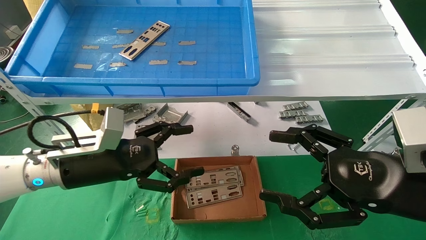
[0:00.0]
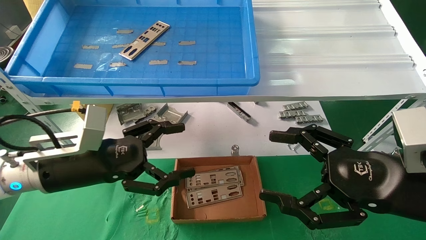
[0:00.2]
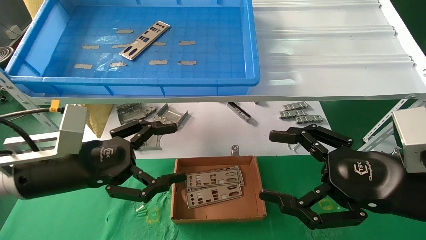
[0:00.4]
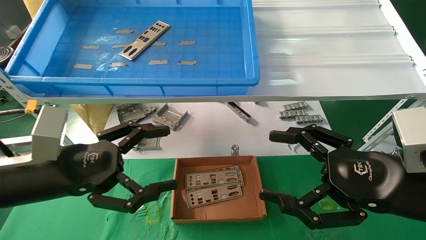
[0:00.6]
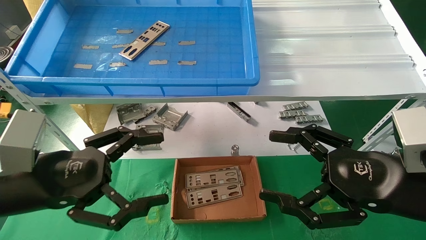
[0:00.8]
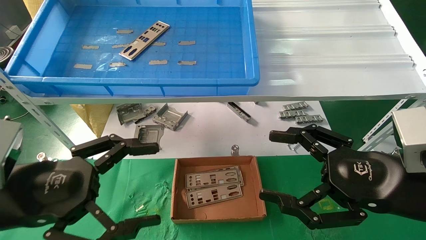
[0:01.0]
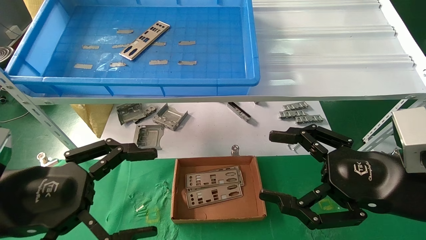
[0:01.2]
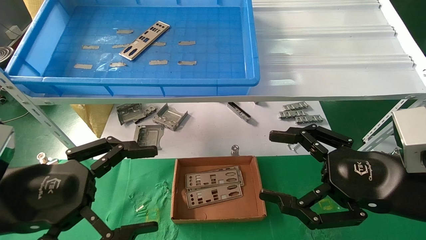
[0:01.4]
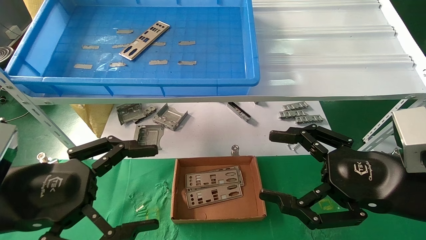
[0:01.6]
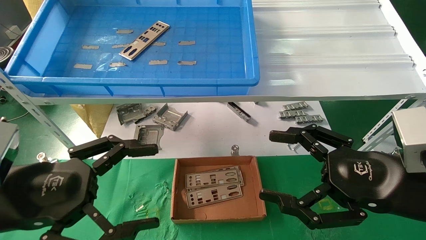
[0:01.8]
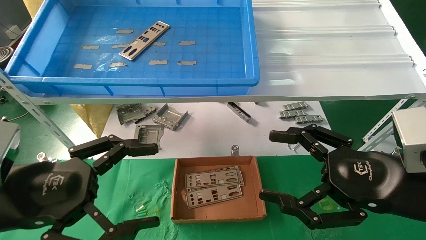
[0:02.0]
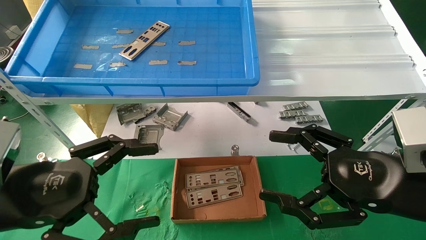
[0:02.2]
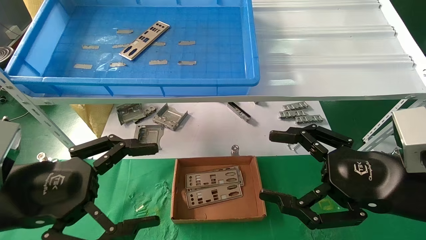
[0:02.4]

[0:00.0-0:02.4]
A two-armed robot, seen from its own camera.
Task of the whole recording: pick up the parts on the tray and put them in the cardboard box.
0:00.0 to 0:01.2: The left gripper moves backward, some 15 cm.
0:01.2 to 0:02.4: Neither gripper changes place.

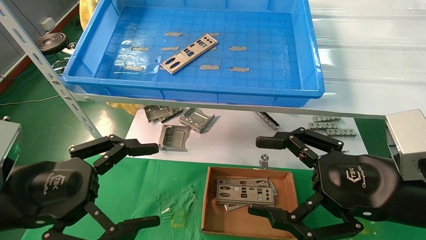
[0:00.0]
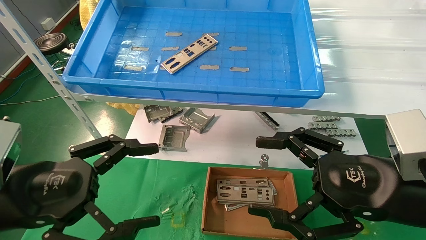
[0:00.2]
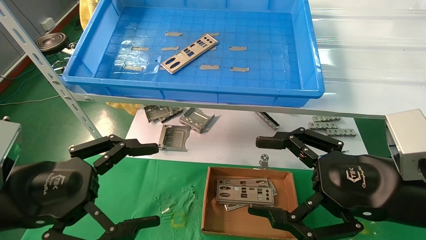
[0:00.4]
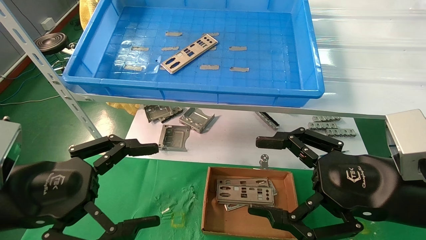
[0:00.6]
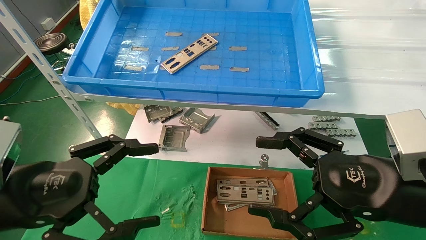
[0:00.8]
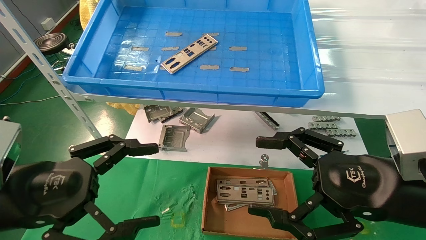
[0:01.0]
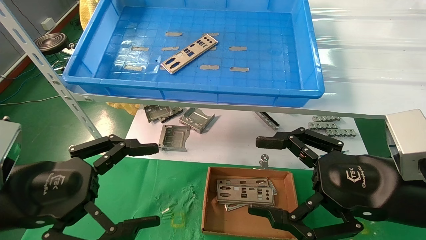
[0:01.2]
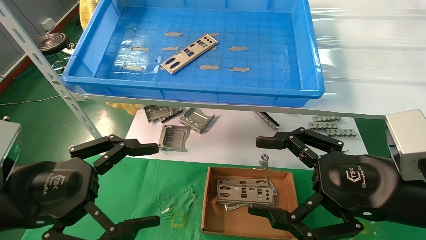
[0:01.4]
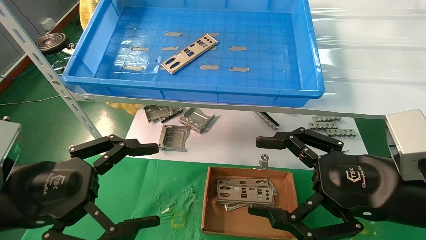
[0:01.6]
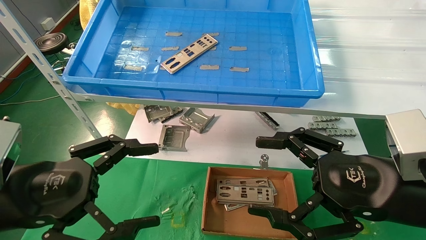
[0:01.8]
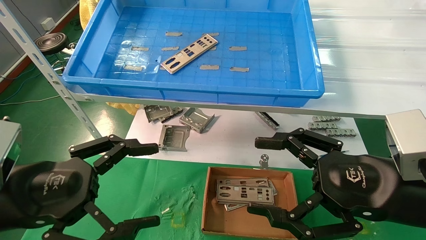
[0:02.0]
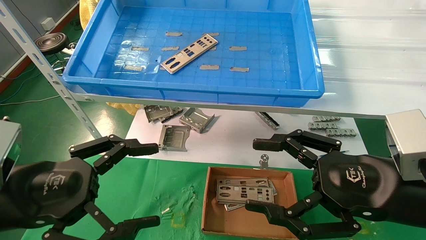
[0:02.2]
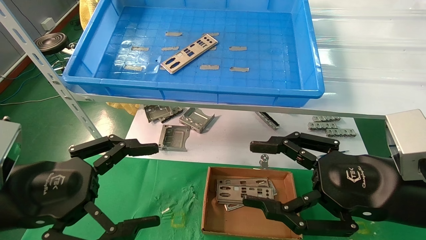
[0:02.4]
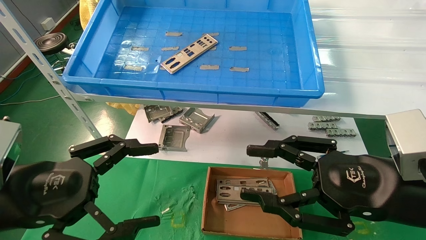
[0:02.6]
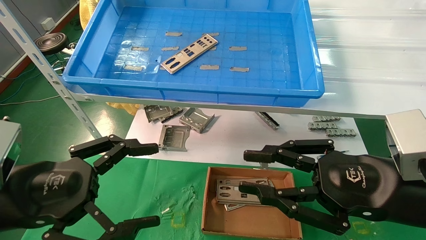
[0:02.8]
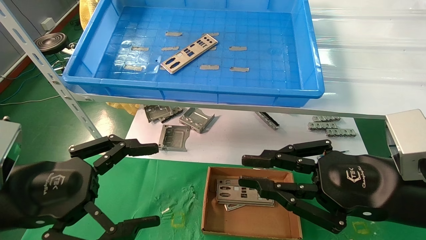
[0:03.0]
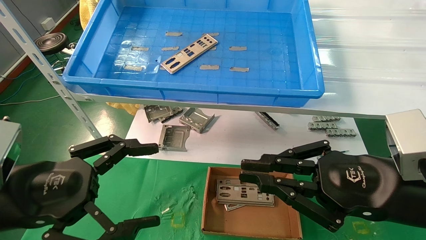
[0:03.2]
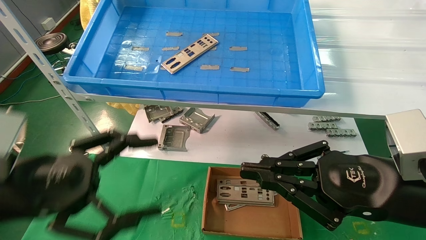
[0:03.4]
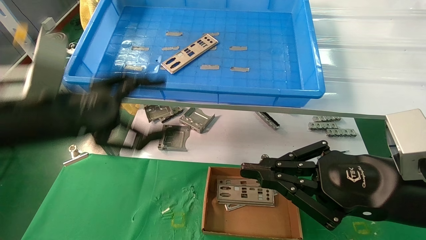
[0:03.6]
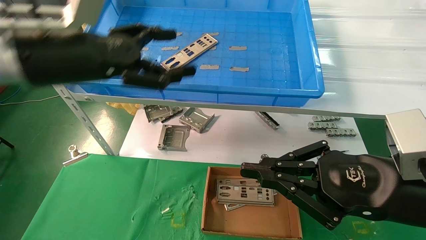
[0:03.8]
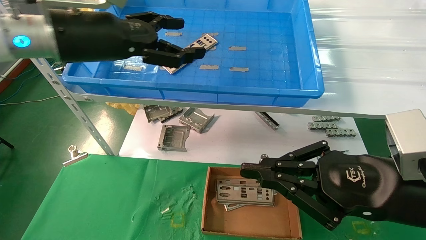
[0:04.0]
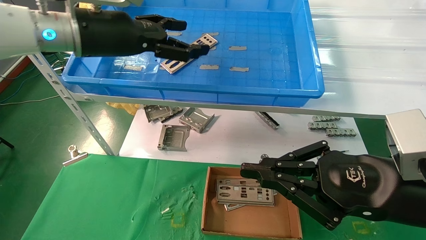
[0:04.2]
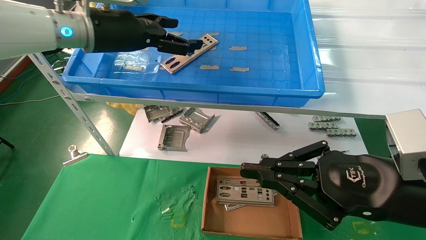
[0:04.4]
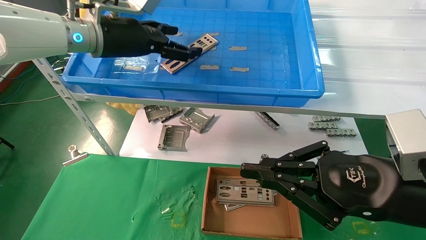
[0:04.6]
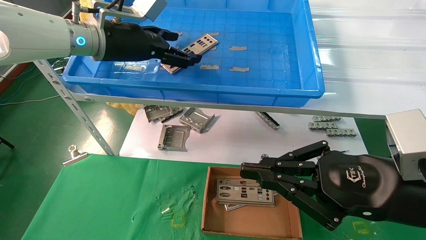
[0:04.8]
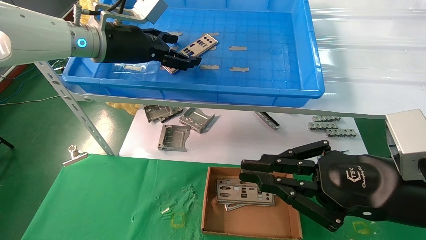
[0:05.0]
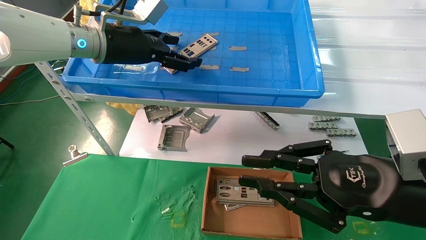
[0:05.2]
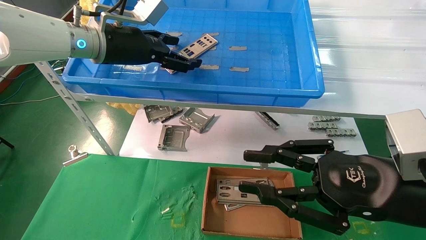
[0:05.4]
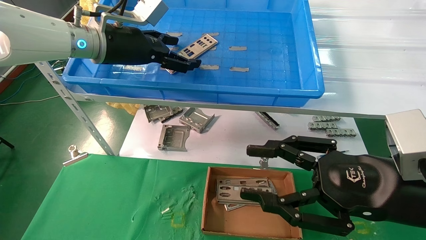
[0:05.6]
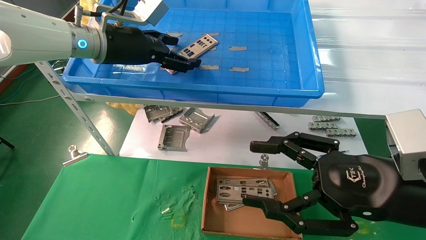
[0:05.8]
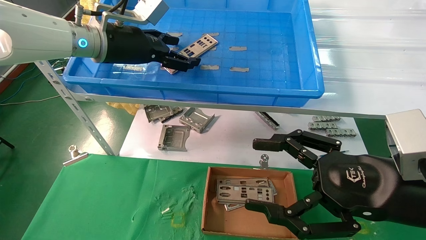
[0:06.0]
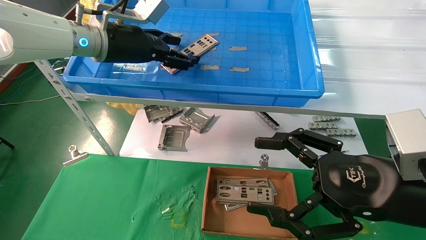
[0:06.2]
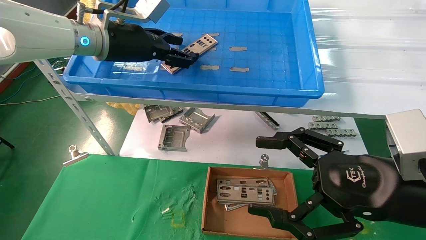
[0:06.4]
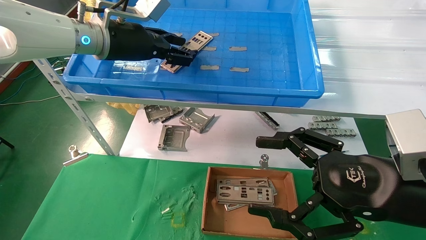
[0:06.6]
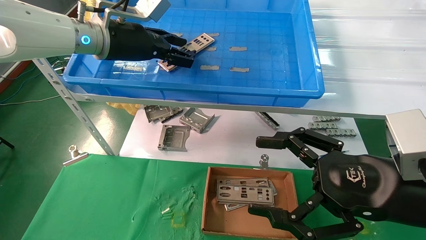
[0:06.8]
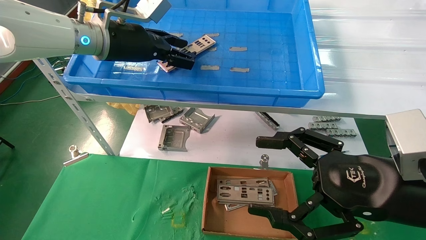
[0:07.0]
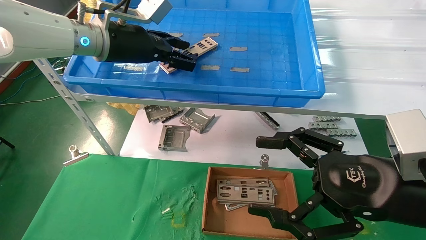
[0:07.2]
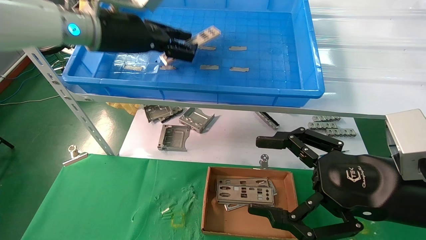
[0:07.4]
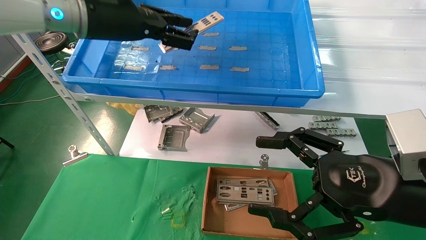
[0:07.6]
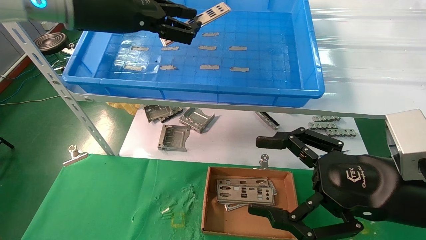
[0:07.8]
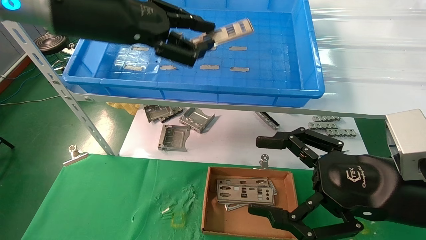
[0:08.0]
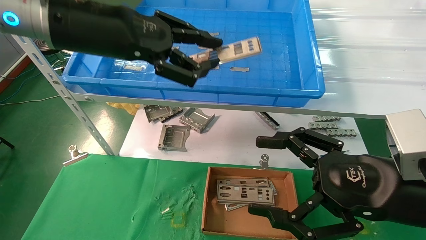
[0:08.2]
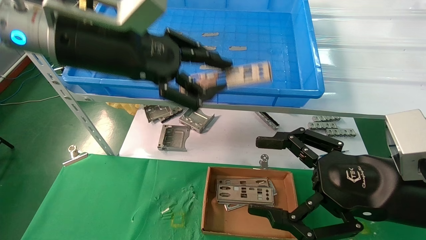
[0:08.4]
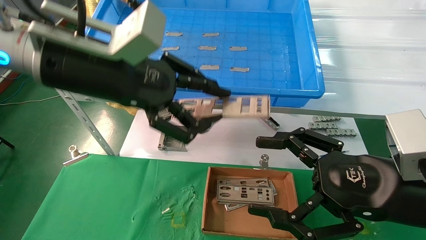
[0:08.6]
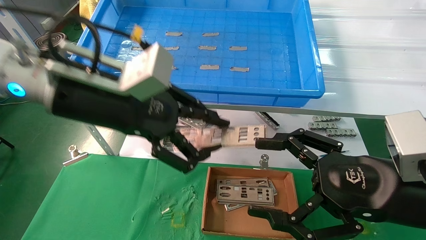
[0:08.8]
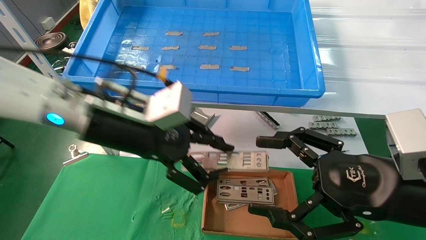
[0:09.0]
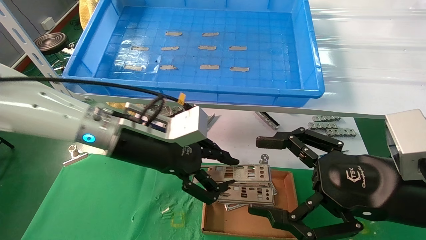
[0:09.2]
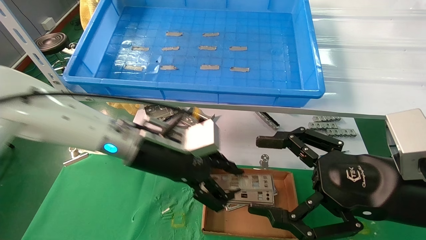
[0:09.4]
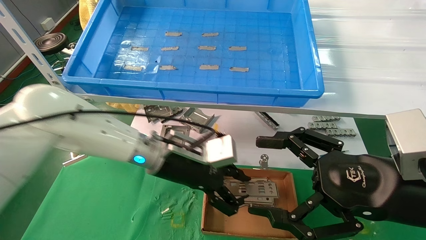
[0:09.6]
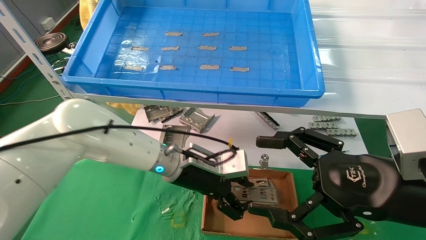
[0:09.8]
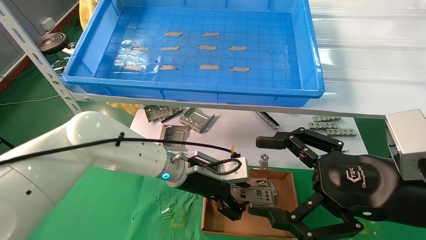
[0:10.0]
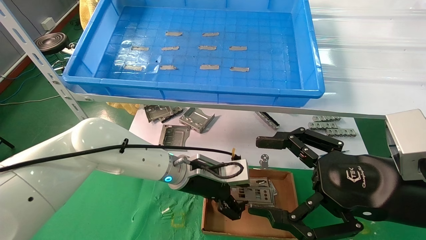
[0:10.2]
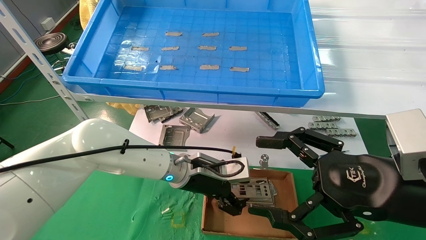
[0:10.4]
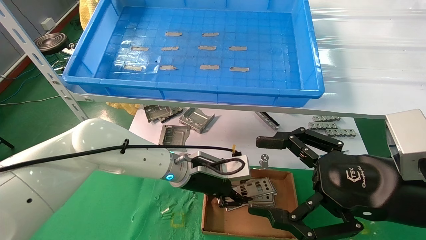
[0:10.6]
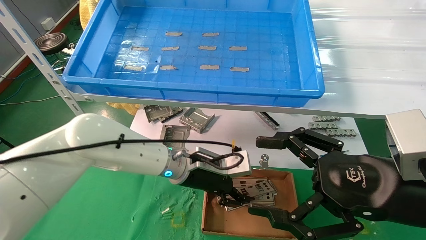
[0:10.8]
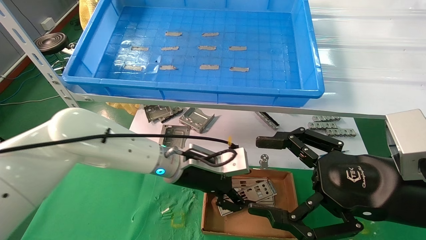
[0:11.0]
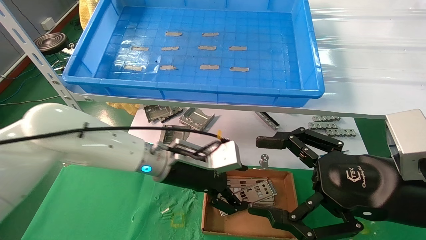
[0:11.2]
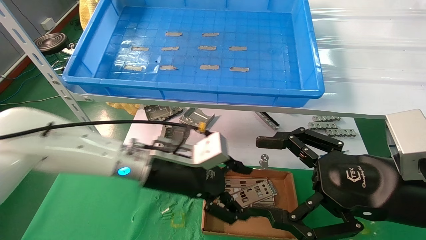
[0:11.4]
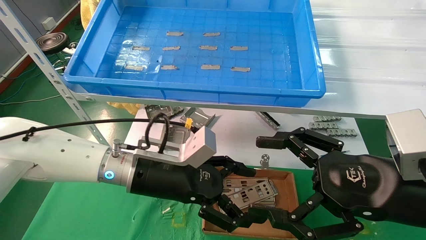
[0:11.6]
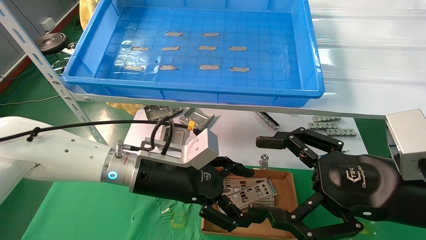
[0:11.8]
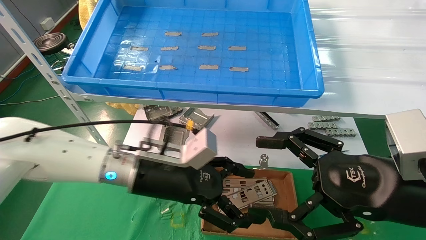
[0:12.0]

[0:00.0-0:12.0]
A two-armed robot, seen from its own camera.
Task of the whole recording: pick up the parts on the tray and put them in the cardboard box.
Step, 0:03.8 to 0:06.6: Pick up the IO bracket from the container box.
Step, 0:06.8 to 0:10.6: Place the IO bracket into the ingredient slot.
0:00.0 to 0:01.6: Both grippers stay about where they are.
0:01.6 to 0:03.0: The right gripper closes up.
0:03.0 to 0:04.4: The left gripper shifts roughly 30 cm forward, upward and to the right.
0:04.4 to 0:06.0: The right gripper opens its fingers.
0:06.0 to 0:07.6: The left gripper changes place by roughly 5 cm, and closes up.
0:07.6 to 0:09.0: The left gripper is displaced downward and backward by about 15 cm.
0:09.0 to 0:10.4: The left gripper goes about 20 cm downward, to the right and forward.
0:10.4 to 0:12.0: The left gripper goes about 10 cm backward and to the left, and opens.

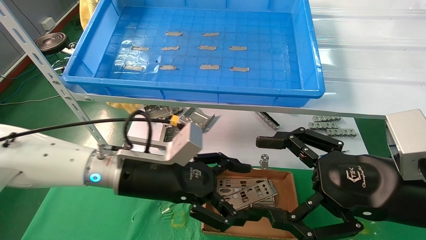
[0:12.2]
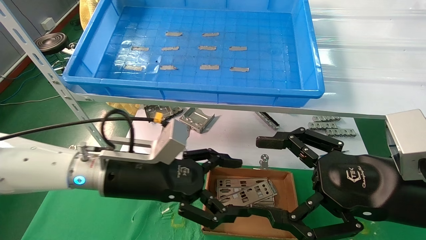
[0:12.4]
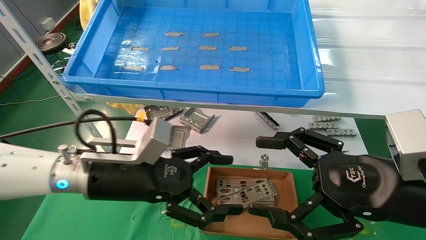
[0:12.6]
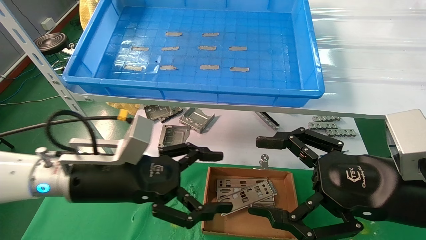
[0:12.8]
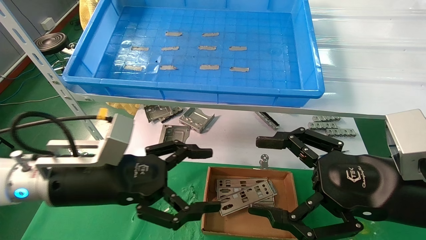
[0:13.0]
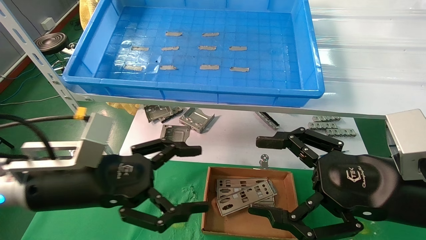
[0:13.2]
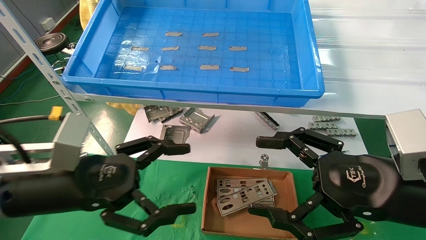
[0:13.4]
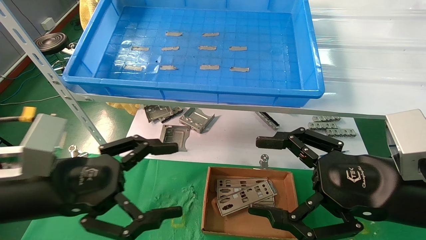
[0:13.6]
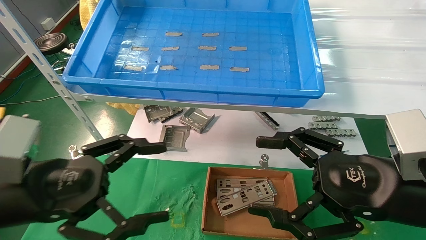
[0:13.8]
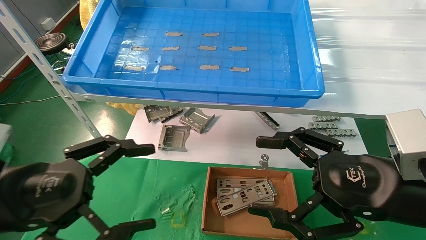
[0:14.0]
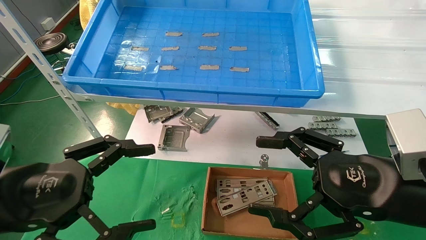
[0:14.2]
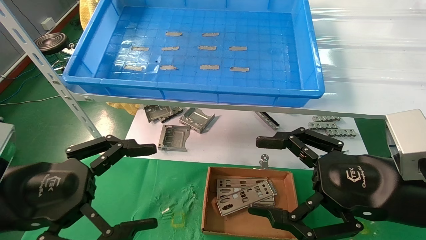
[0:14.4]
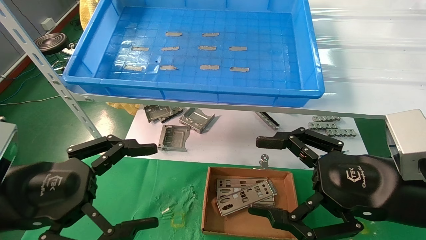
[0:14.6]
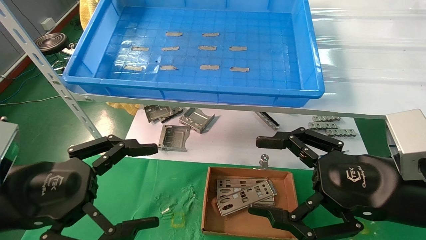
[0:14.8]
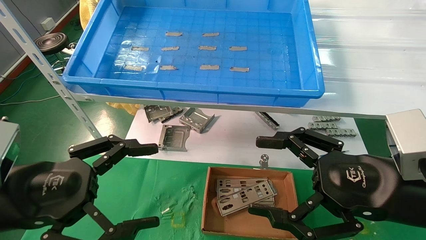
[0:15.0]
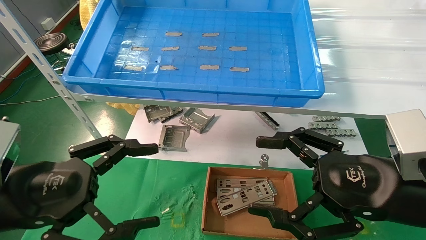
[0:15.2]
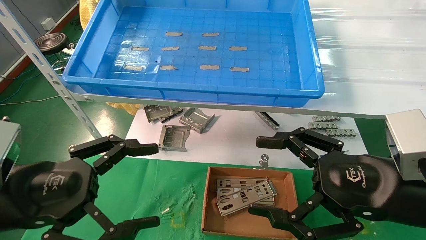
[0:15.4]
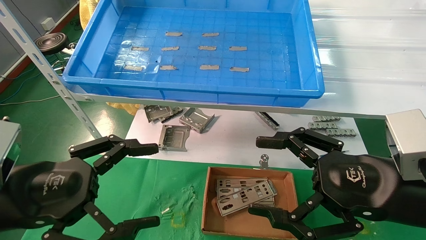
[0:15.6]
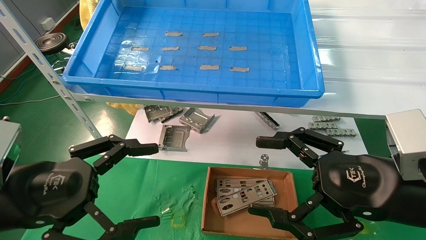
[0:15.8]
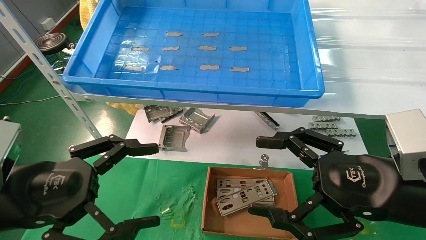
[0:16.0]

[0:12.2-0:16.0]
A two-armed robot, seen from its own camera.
Task of the whole recording: pick up the parts on the tray and put them in the cardboard box.
0:12.2 to 0:13.4: The left gripper shifts roughly 15 cm to the left and backward.
0:13.4 to 0:14.8: The left gripper ends up roughly 5 cm from where it was.
0:14.8 to 0:16.0: The two grippers keep their place.
